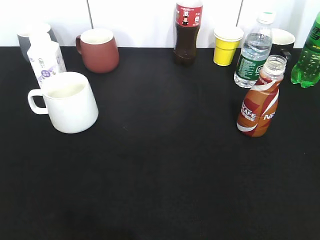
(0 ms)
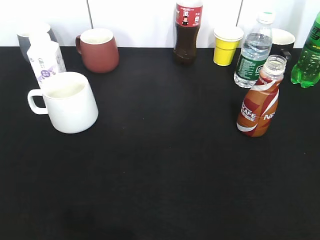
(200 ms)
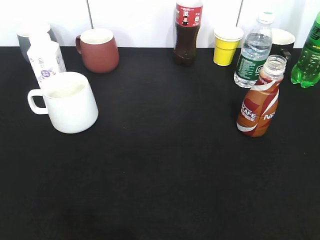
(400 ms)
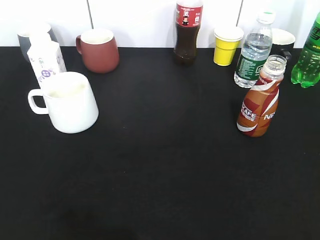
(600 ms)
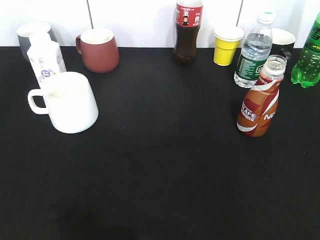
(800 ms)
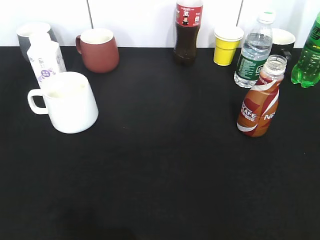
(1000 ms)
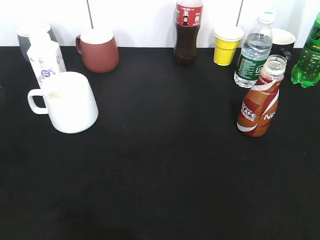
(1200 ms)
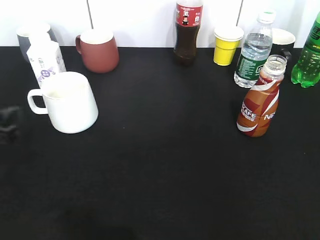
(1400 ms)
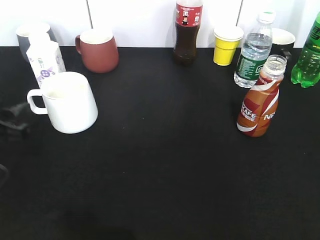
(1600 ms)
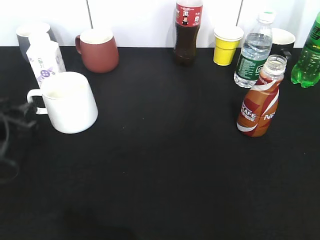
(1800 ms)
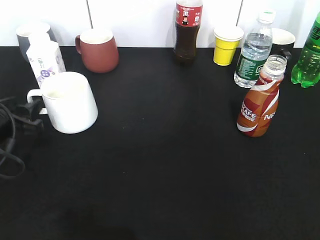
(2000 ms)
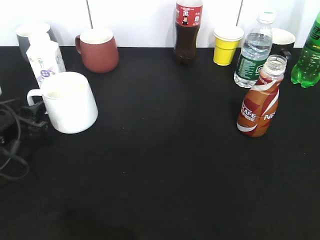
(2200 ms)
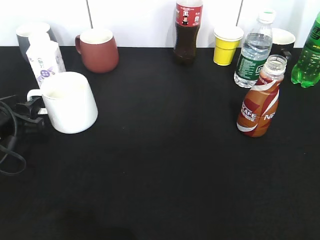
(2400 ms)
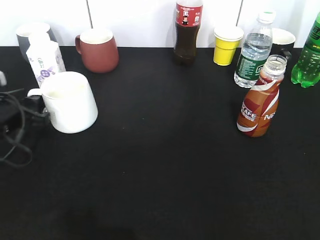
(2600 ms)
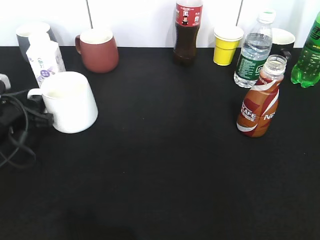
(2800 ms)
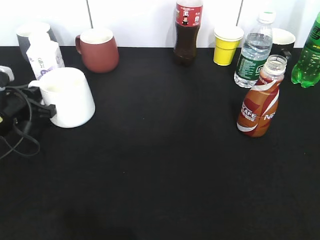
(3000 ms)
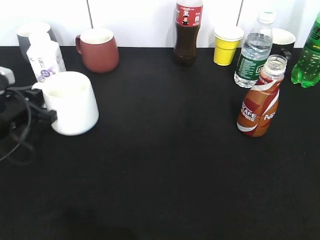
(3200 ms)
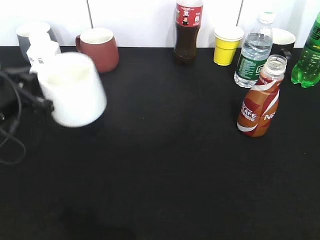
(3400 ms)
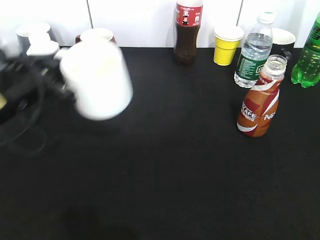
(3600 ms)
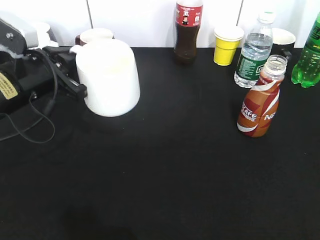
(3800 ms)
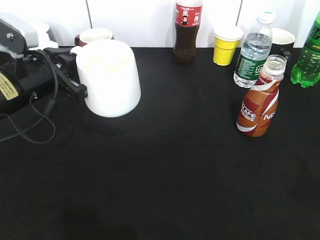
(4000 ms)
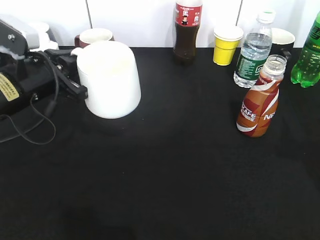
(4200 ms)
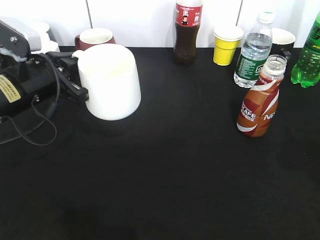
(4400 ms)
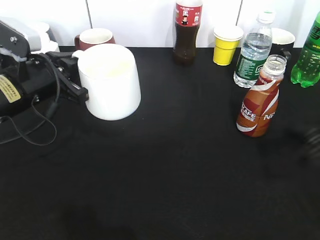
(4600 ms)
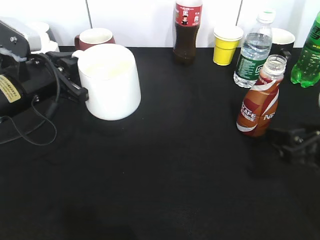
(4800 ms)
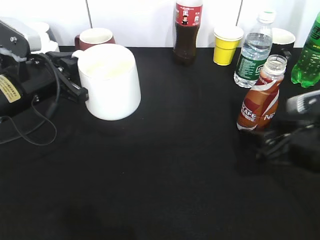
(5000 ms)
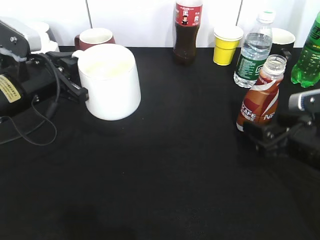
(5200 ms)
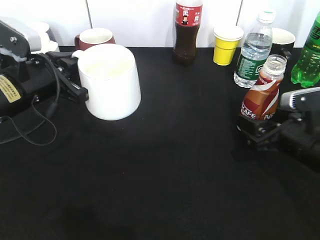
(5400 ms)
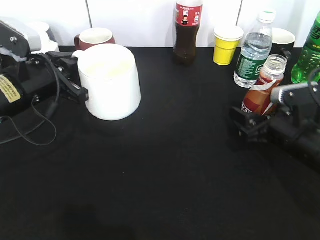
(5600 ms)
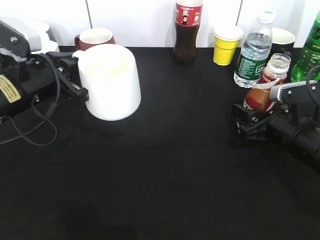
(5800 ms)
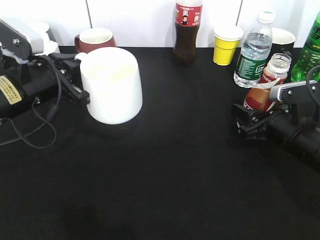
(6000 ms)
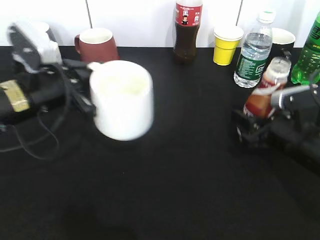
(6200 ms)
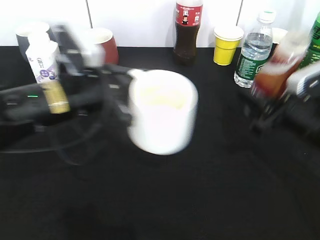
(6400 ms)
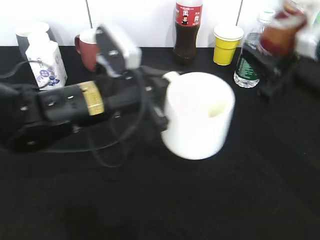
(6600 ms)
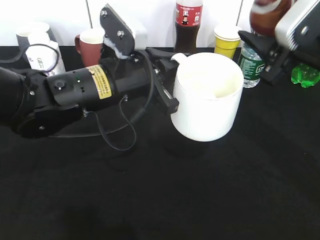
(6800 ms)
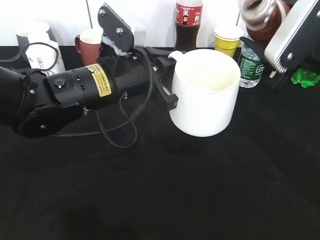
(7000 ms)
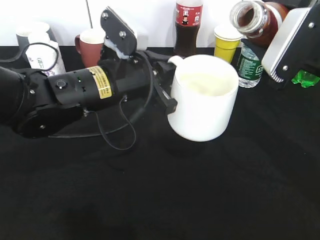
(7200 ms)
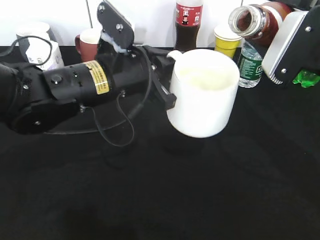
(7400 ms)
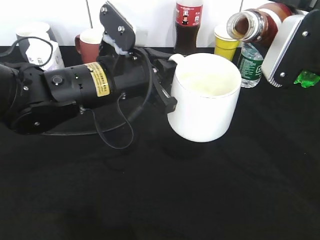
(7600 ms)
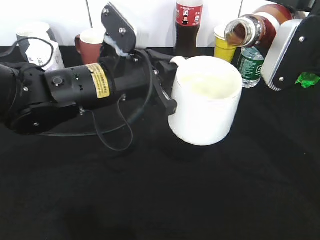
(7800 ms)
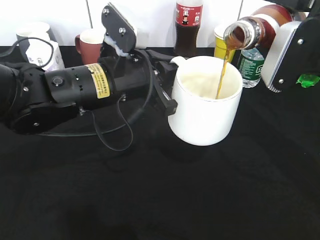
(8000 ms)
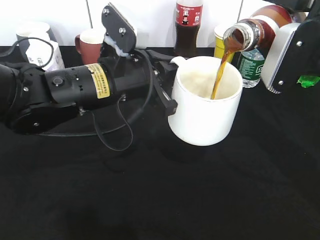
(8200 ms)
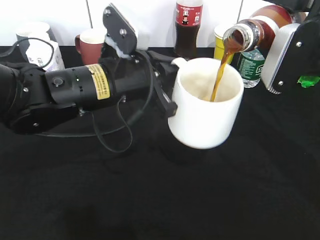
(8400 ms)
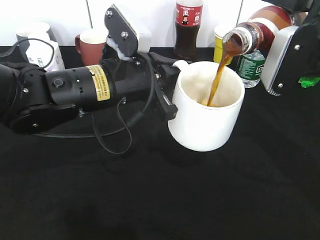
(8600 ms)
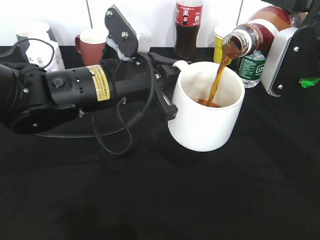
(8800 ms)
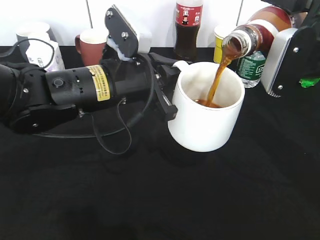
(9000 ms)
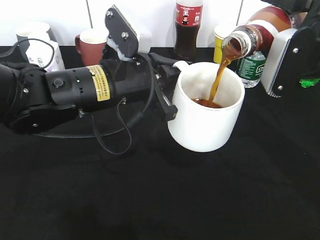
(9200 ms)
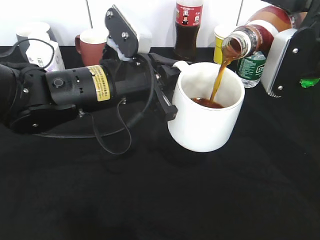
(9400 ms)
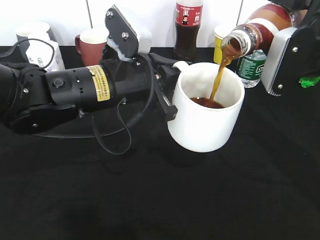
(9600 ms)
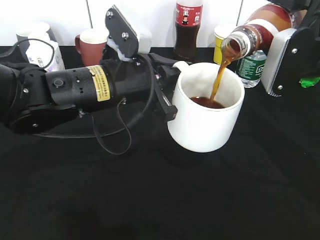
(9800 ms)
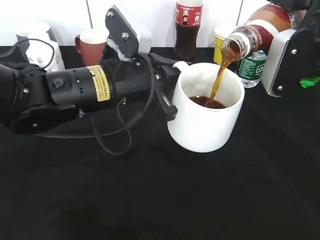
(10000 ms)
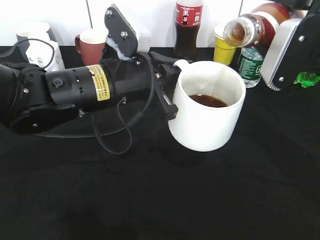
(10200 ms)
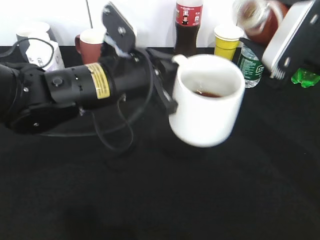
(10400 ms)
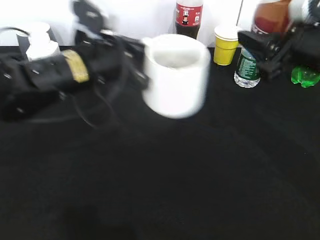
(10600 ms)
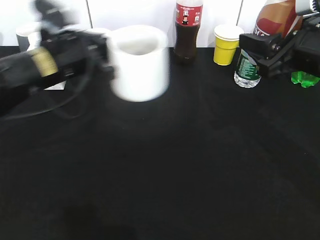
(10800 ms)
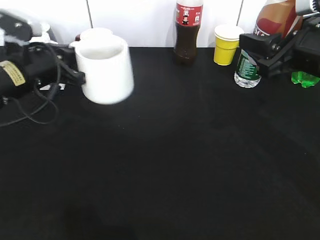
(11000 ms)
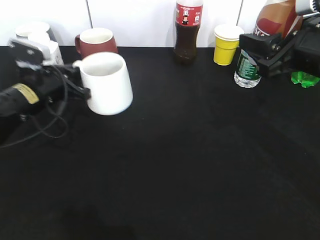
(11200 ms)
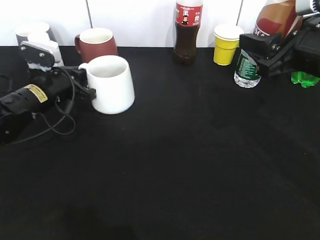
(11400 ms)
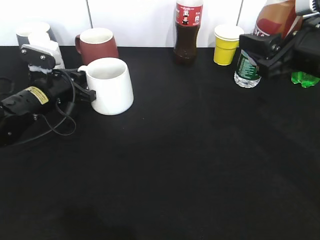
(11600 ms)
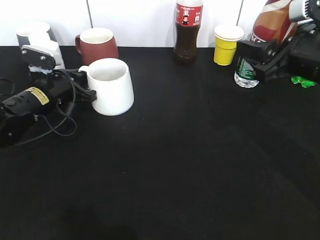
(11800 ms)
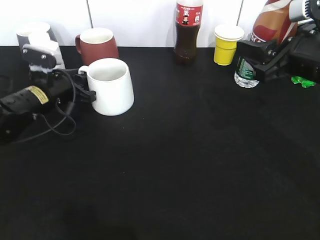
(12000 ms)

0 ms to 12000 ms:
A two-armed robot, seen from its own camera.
Step, 400 ms to 3000 ms: Grasp the white cup with left gripper.
Step, 3200 ms to 3600 ms: Lift the white cup with left gripper.
Step, 4000 ms to 5600 ms: Grasp the bottle with coffee with right gripper.
Step, 6000 ms to 10200 ms: Pour the coffee from bottle to cup with right gripper.
0 ms to 1600 ms: The left gripper shifts about 25 cm forward and downward, and opens up.
1600 ms to 3000 ms: The left gripper travels forward by roughly 10 cm, and closes.
3000 ms to 4400 ms: The left gripper shifts roughly 10 cm upward and to the right. The right gripper goes approximately 15 cm forward.
4400 ms to 6000 ms: The right gripper is displaced downward, forward and to the left by some 15 cm, and closes.
6000 ms to 7600 ms: The left gripper moves to the right, approximately 15 cm; the right gripper shifts roughly 15 cm upward.
7600 ms to 9000 ms: The grippers make only small movements.
10400 ms to 12000 ms: The left gripper heads to the left, downward and forward, covering approximately 20 cm, and opens its fingers.

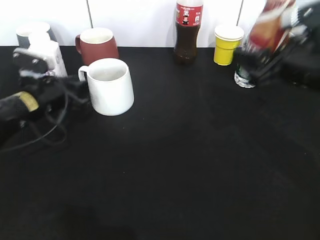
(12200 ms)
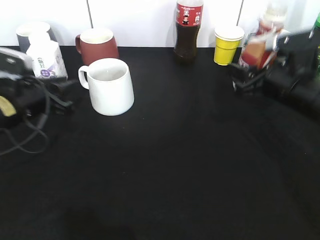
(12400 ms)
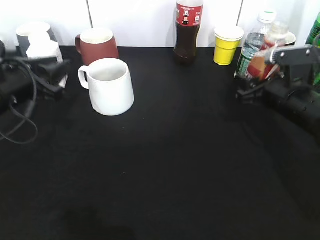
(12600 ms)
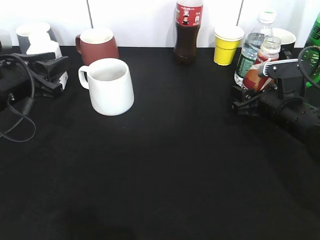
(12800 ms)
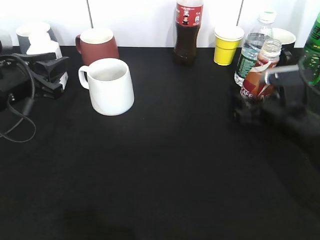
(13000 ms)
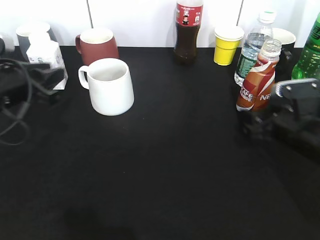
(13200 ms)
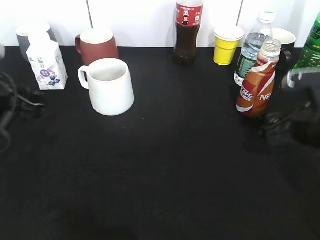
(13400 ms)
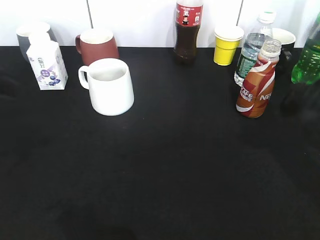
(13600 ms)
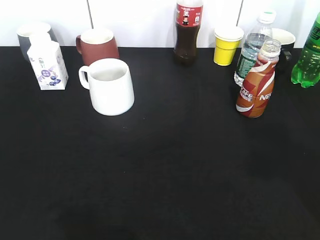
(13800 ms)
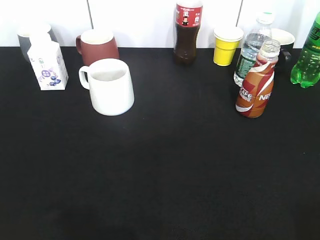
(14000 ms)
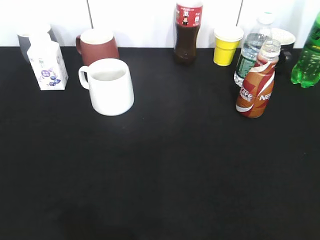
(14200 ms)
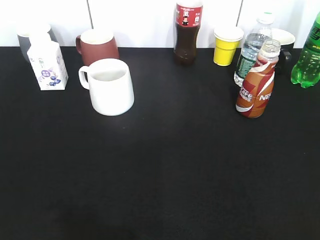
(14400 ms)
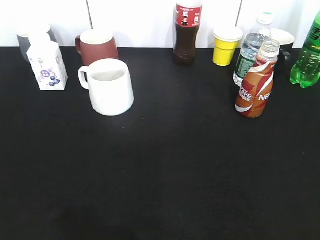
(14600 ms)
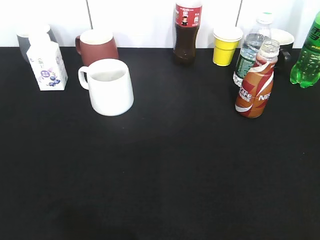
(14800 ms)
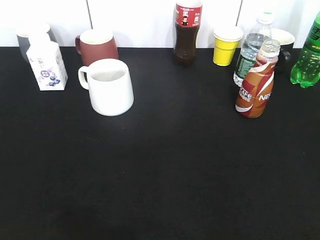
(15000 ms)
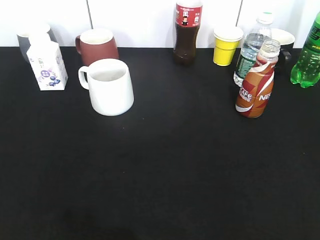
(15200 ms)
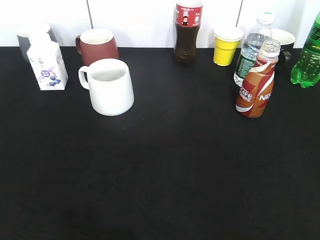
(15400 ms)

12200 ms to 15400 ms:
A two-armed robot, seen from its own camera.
Step, 12200 ms to 12800 ms: Place the coffee bottle on the table with right gripper.
12200 ms to 13800 ms: The right gripper heads backward and upward, covering some 20 cm, and opens up. The left gripper is displaced backward and upward by roughly 35 cm.
13800 ms to 15400 ms: Both grippers move backward and downward, about 15 cm.

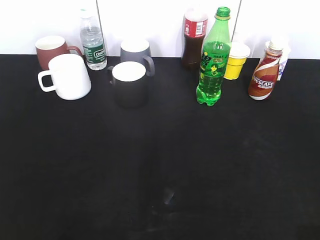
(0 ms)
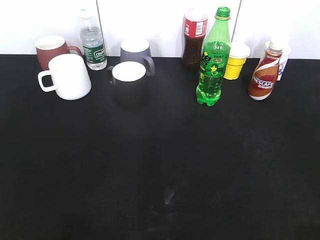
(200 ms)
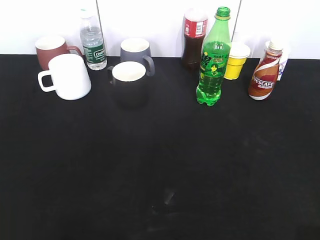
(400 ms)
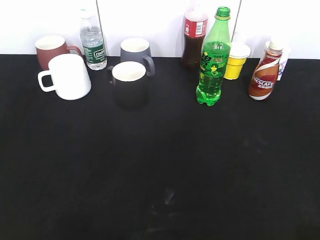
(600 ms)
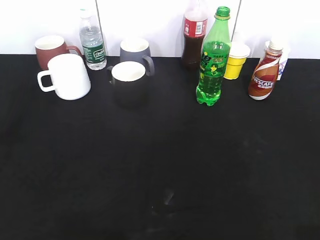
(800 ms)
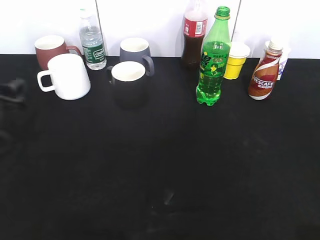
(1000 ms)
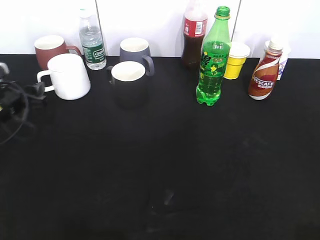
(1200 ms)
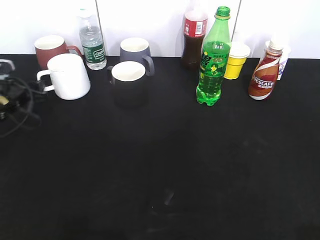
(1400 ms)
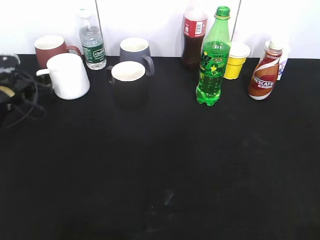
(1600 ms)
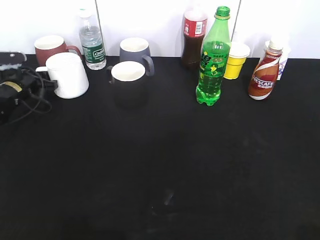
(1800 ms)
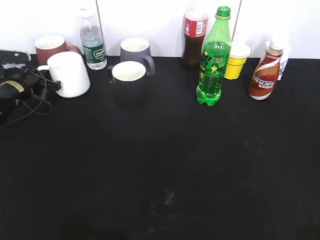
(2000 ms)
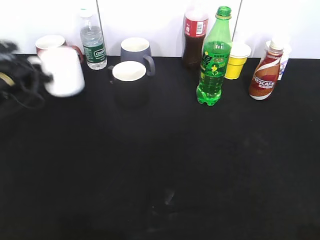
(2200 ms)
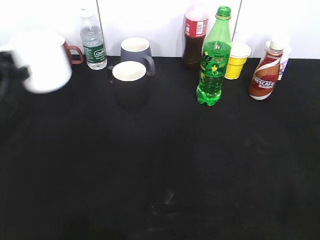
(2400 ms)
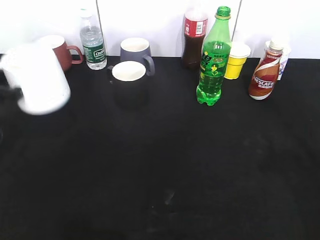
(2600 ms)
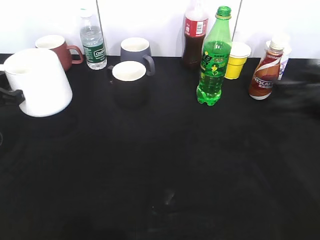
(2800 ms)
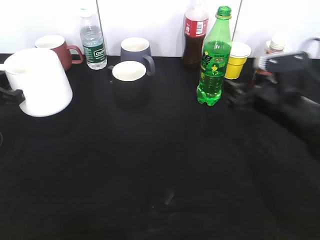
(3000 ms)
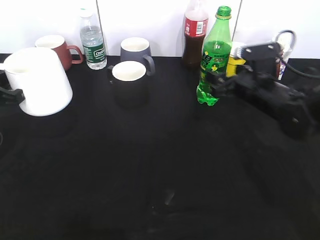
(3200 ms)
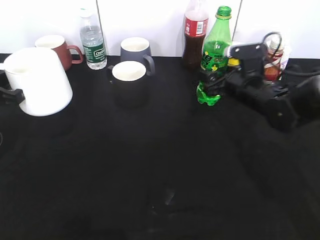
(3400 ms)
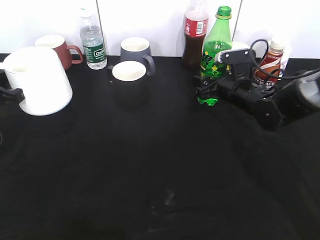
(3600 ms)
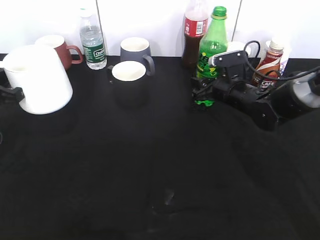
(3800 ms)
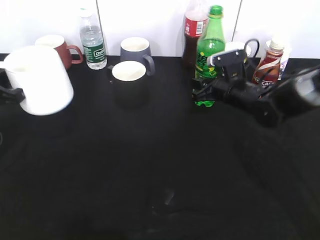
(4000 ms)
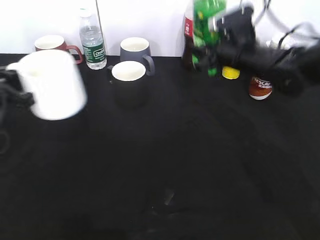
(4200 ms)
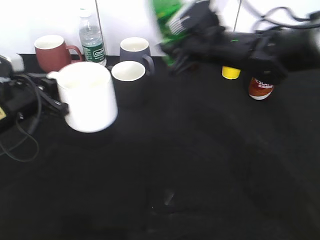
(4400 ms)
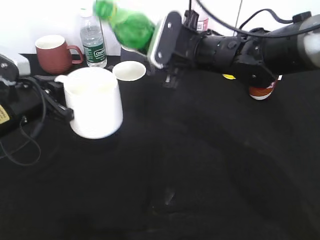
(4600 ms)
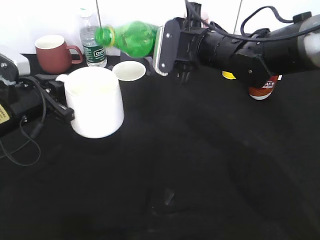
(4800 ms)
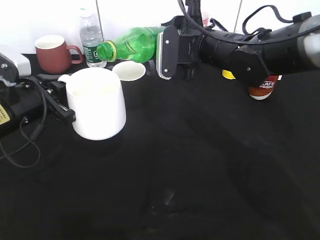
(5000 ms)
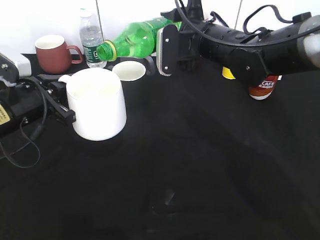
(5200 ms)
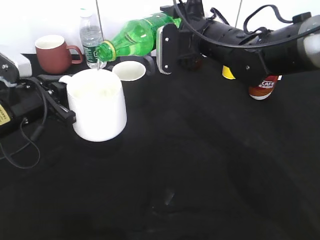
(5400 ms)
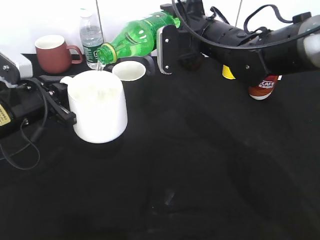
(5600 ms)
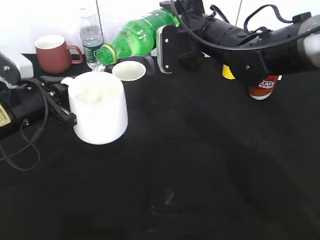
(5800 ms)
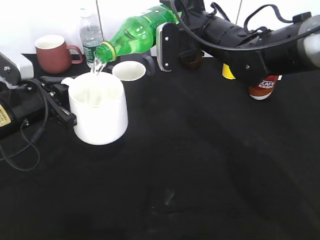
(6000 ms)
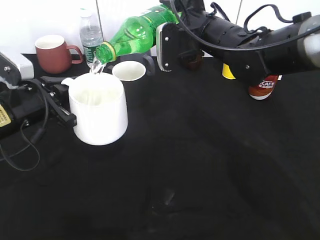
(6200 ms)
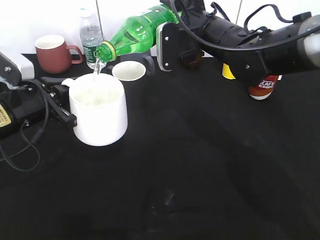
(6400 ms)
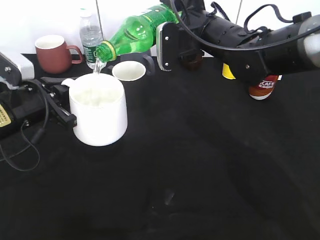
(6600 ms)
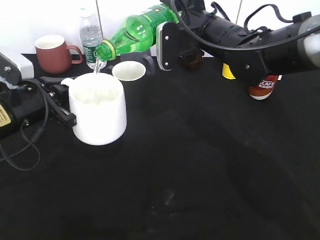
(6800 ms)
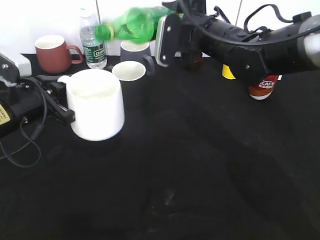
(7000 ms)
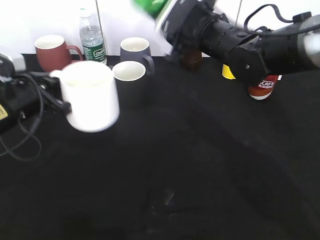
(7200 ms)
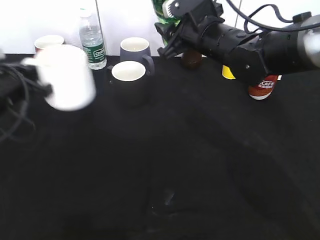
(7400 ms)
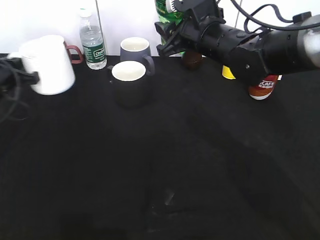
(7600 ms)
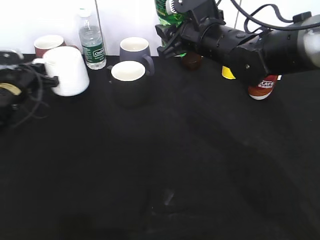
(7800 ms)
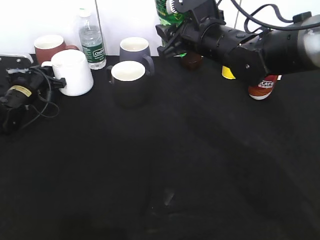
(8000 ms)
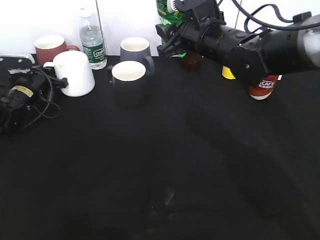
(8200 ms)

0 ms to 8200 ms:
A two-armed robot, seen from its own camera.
Step, 0 ms to 1800 ms: Grasp the white cup with left gripper.
Step, 2000 ms to 2600 ms: Lift the white cup with left gripper.
Step, 2800 ms to 3800 ms: Grasp the bottle with sprite with right gripper.
Step, 4000 ms to 7000 ms: Pour the sprite from bottle to cup with right gripper.
0 ms to 1600 ms: The left gripper travels forward and downward by approximately 50 cm.
1600 ms to 3200 ms: The left gripper shifts some 15 cm backward and upward, and closes up; the right gripper travels forward and downward by about 40 cm, and opens.
3200 ms to 5000 ms: The right gripper travels to the left and upward by some 15 cm, and closes its fingers, while the left gripper moves to the right, roughly 10 cm.
5000 ms to 6600 ms: The grippers stay close to where they were, moving slightly.
6600 ms to 8200 ms: The left gripper travels forward, downward and to the left by some 25 cm.
